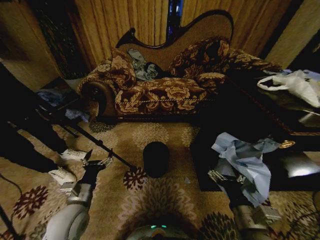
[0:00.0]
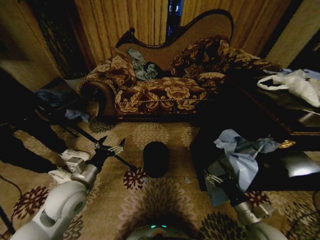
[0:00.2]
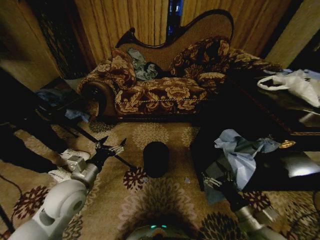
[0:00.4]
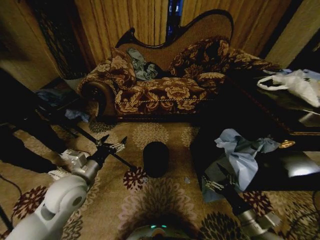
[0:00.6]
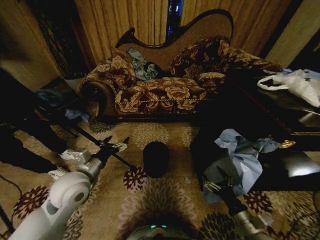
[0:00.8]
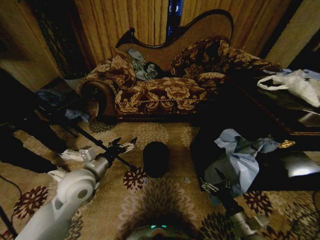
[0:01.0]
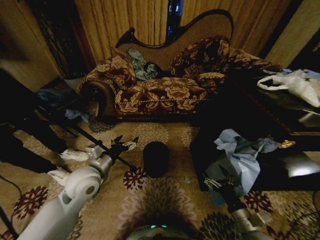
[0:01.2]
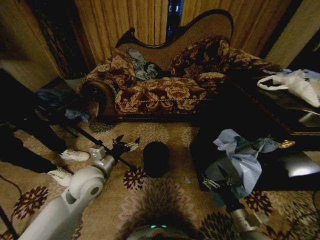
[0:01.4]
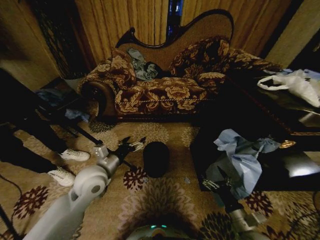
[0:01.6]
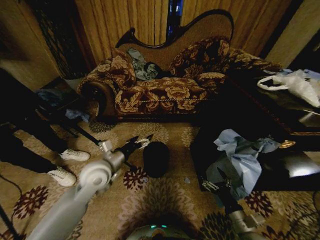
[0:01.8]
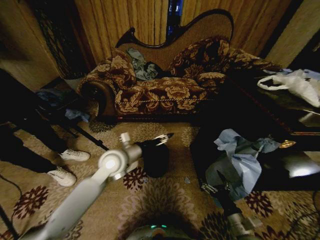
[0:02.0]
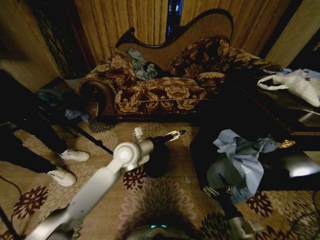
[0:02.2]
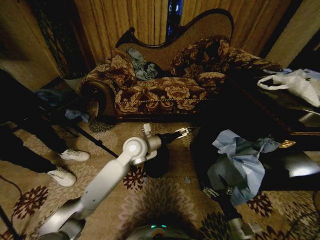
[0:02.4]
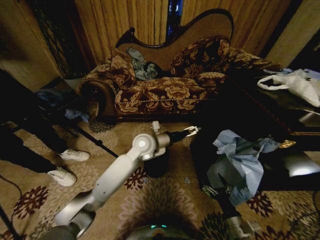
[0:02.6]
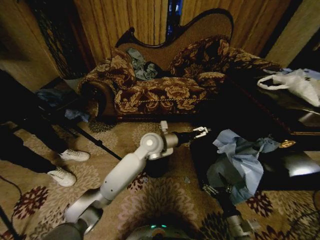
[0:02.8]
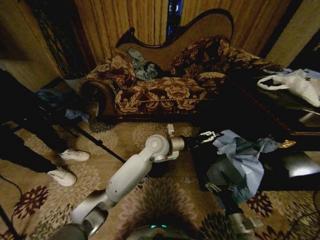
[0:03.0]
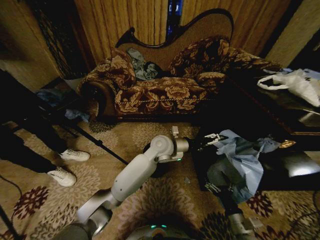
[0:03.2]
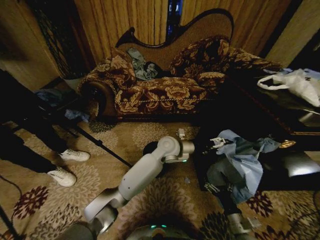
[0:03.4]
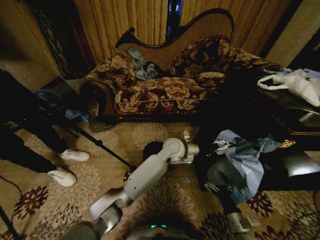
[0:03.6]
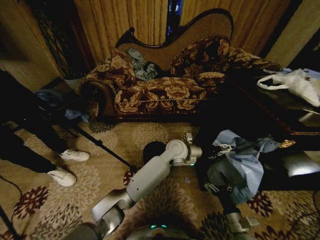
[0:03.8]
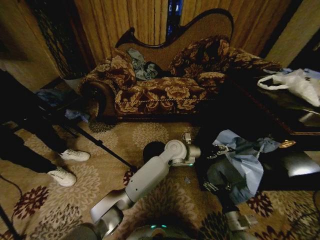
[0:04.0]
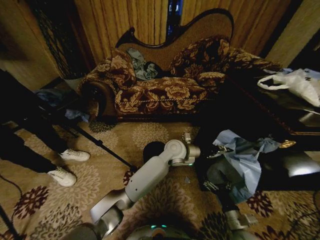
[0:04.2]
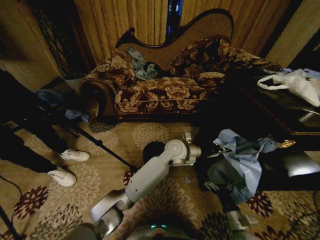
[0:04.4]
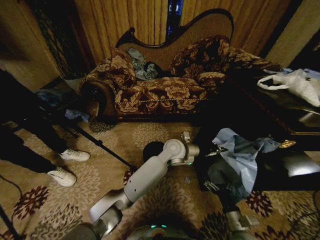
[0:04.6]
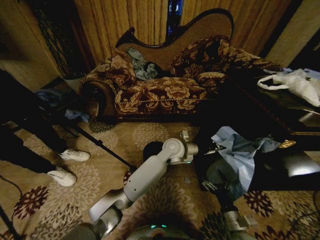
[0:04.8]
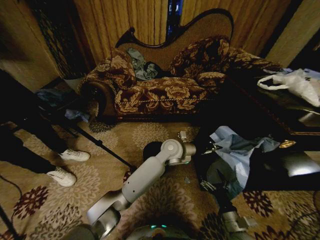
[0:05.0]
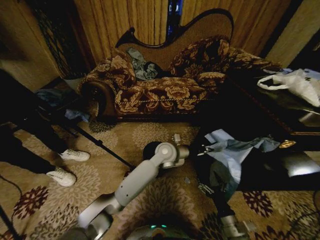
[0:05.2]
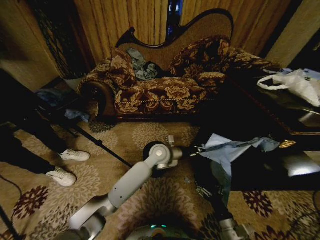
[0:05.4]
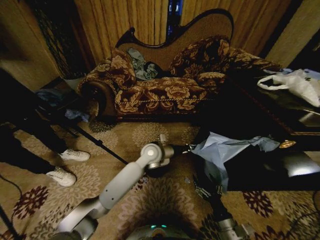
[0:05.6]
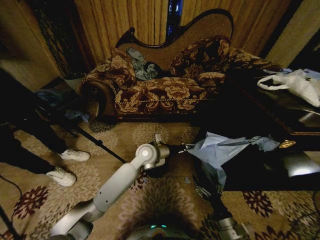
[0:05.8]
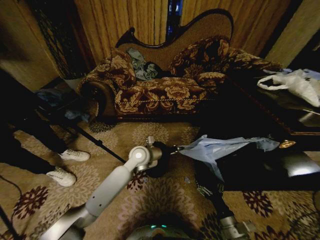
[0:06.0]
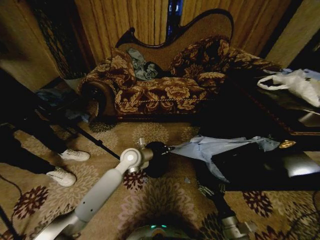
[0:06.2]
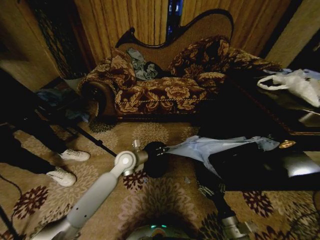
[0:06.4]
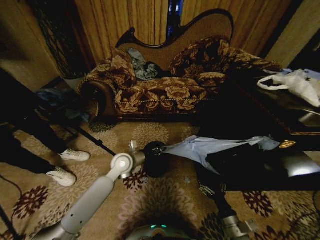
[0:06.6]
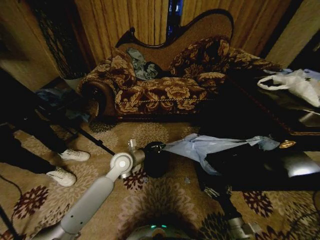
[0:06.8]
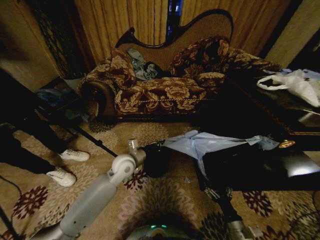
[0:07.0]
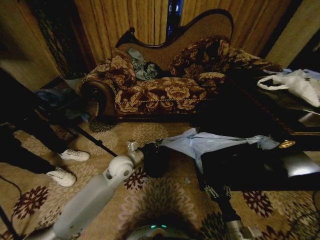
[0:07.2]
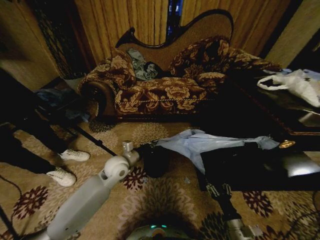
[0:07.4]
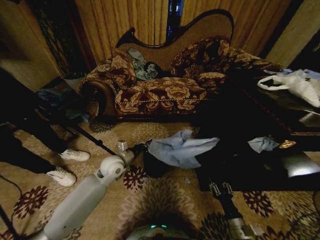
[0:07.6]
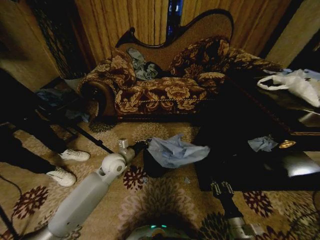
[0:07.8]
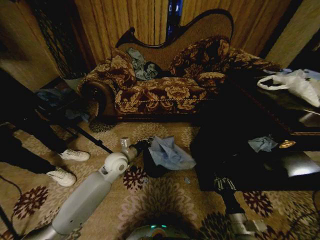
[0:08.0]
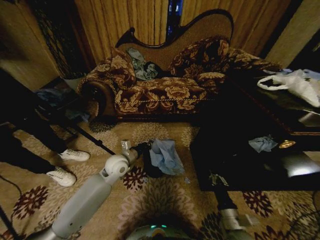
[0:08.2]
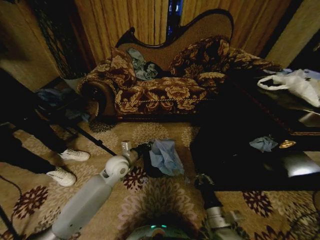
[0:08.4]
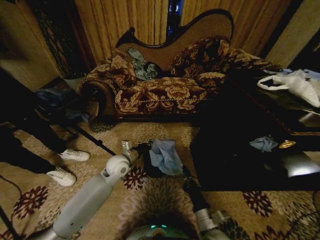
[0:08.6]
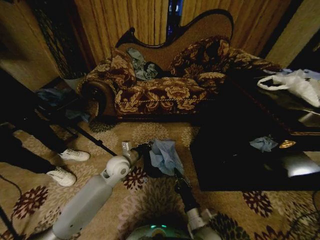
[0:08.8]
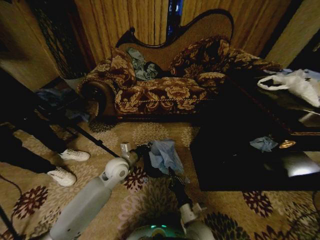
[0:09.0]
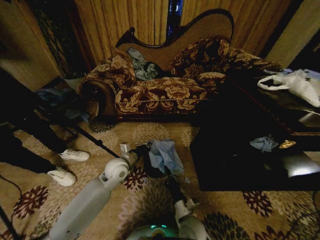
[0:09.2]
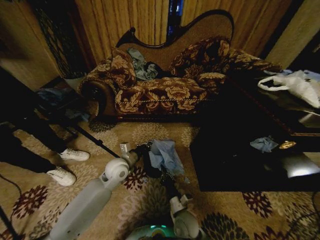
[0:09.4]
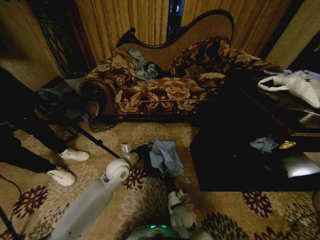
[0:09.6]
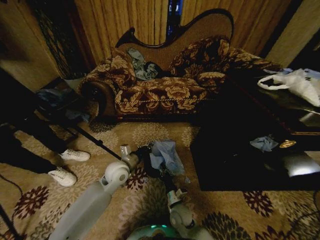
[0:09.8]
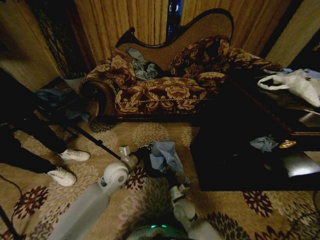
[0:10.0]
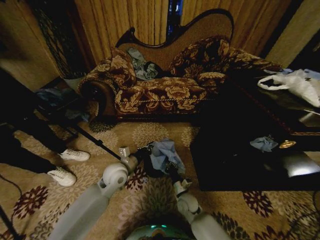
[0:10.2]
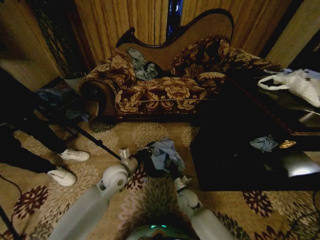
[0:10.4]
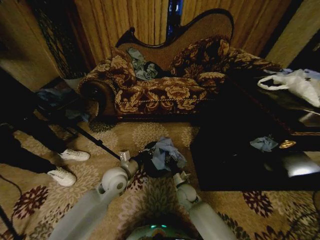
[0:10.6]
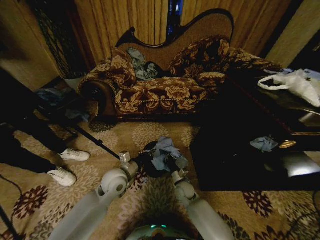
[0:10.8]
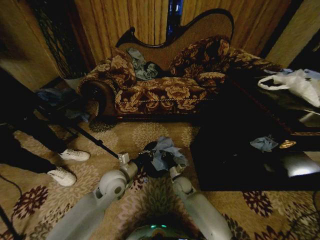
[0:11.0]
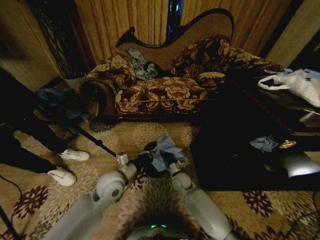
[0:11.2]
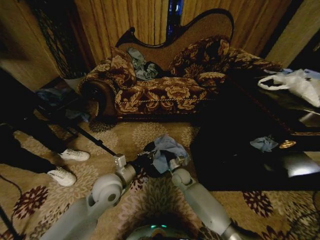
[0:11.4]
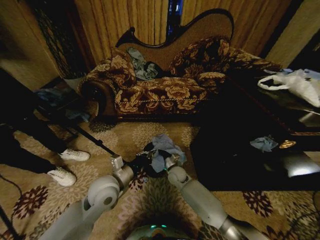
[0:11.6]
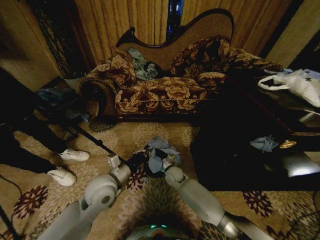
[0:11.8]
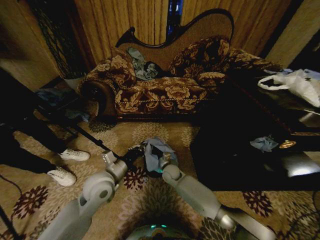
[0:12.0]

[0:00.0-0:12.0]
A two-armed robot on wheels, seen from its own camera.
Task of the whole recording: Place a garbage bag over the trash bin.
0:01.6 to 0:03.0: The left gripper is displaced to the right and forward by some 25 cm.
0:03.0 to 0:04.4: The left gripper travels to the right by about 10 cm, and closes.
0:04.4 to 0:06.0: The left gripper is displaced to the left by some 15 cm.
0:06.0 to 0:07.6: The right gripper closes its fingers; the left gripper heads to the left, covering approximately 10 cm.
0:07.6 to 0:09.0: The right gripper shifts approximately 15 cm to the left, and closes.
0:09.0 to 0:10.4: The right gripper travels forward and downward by roughly 15 cm.
0:10.4 to 0:12.0: The left gripper travels backward by roughly 5 cm. The right gripper moves forward, to the left and upward, about 15 cm.

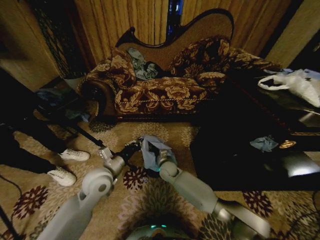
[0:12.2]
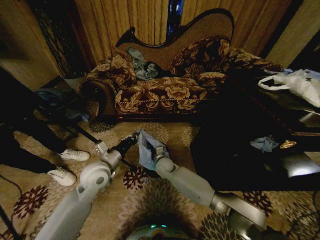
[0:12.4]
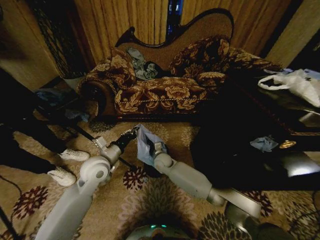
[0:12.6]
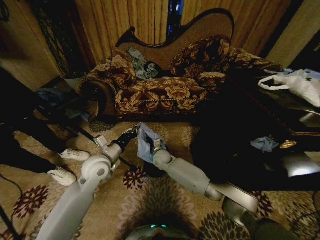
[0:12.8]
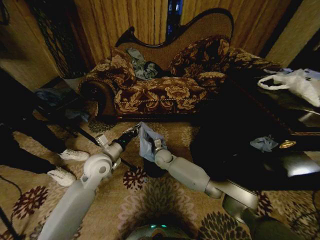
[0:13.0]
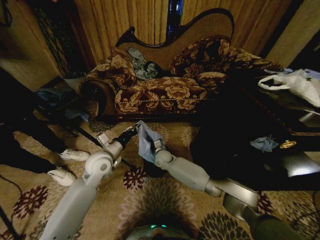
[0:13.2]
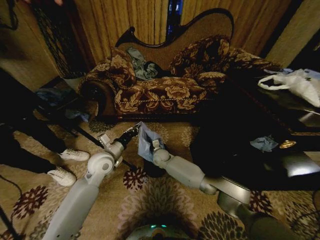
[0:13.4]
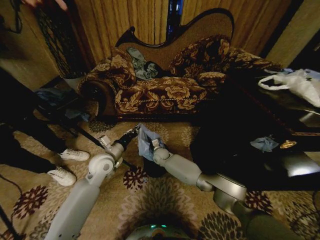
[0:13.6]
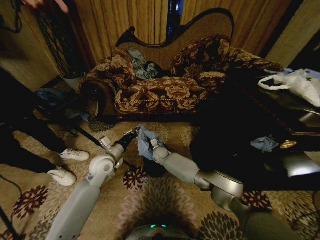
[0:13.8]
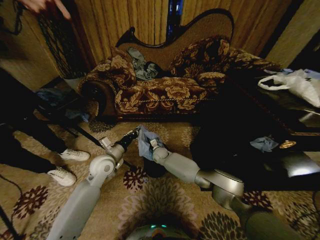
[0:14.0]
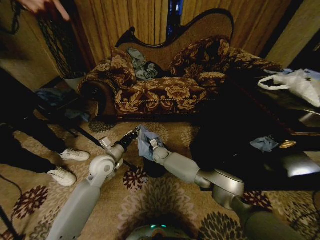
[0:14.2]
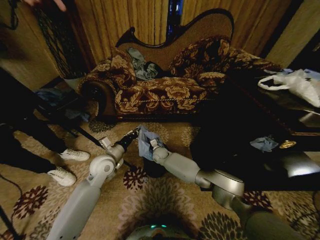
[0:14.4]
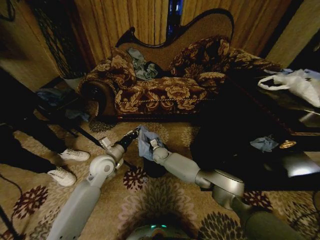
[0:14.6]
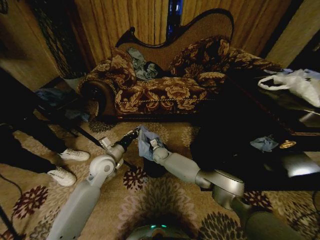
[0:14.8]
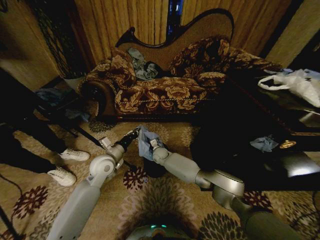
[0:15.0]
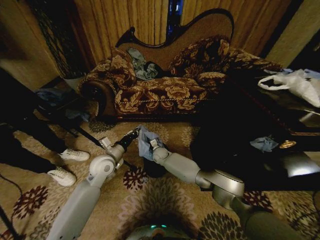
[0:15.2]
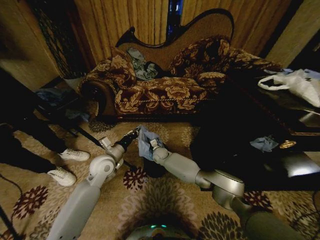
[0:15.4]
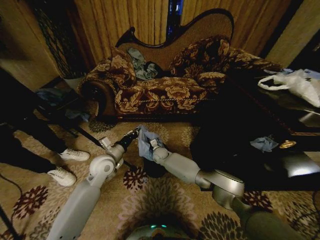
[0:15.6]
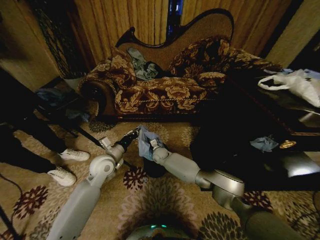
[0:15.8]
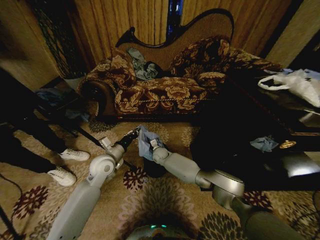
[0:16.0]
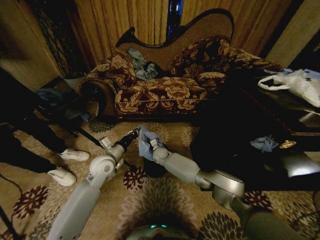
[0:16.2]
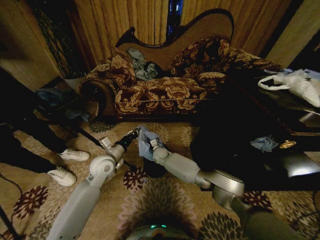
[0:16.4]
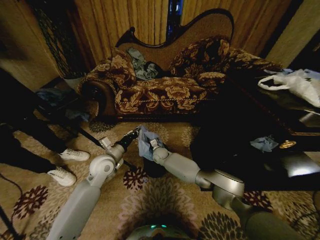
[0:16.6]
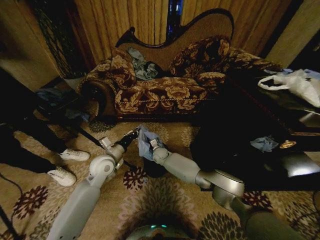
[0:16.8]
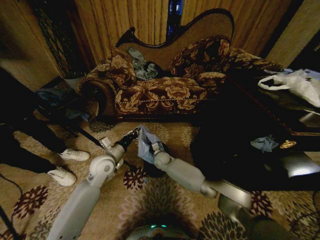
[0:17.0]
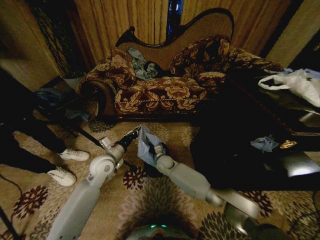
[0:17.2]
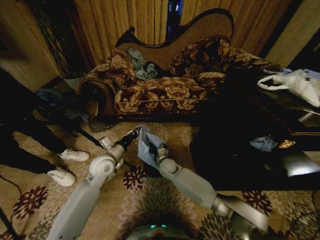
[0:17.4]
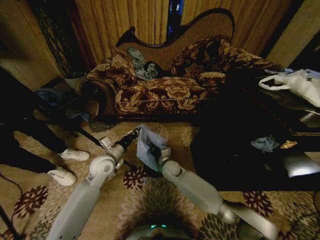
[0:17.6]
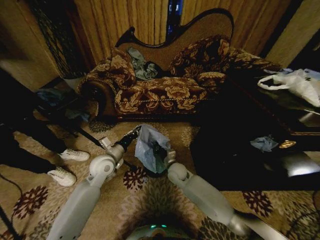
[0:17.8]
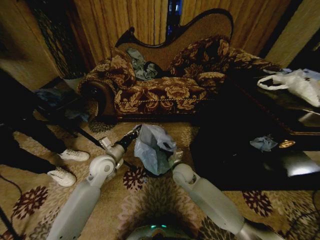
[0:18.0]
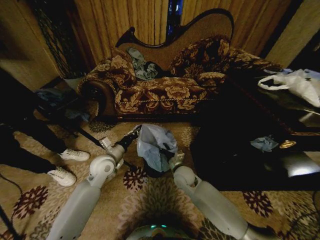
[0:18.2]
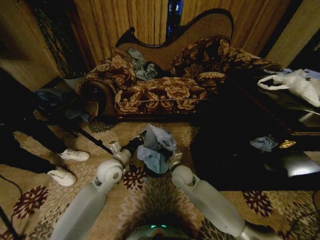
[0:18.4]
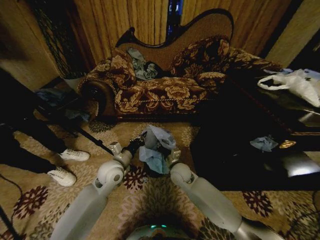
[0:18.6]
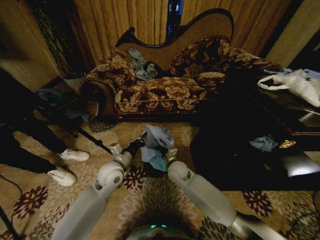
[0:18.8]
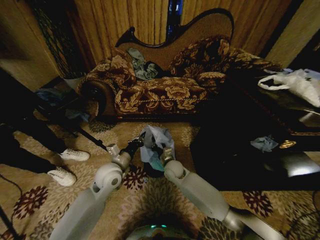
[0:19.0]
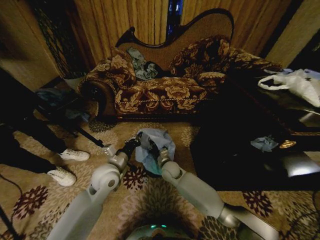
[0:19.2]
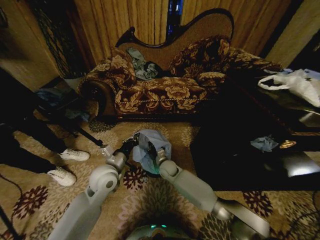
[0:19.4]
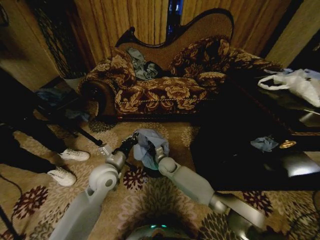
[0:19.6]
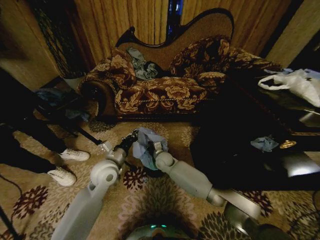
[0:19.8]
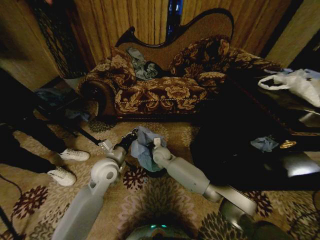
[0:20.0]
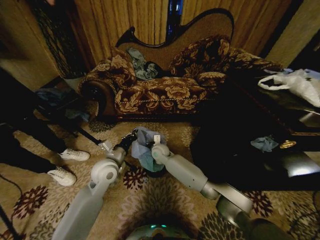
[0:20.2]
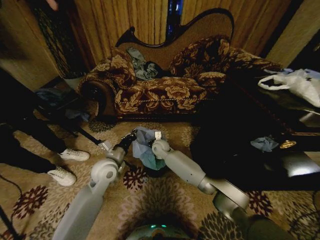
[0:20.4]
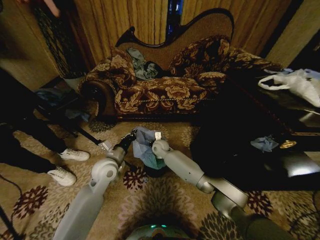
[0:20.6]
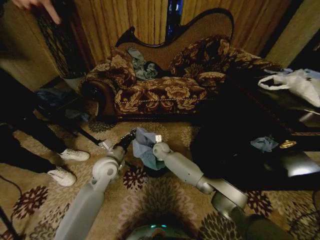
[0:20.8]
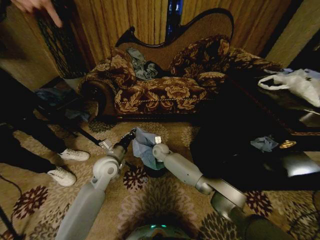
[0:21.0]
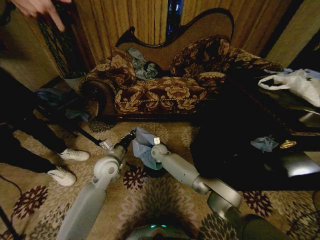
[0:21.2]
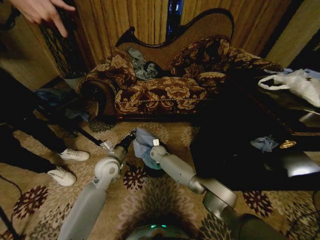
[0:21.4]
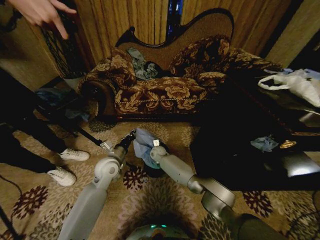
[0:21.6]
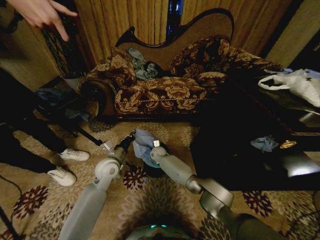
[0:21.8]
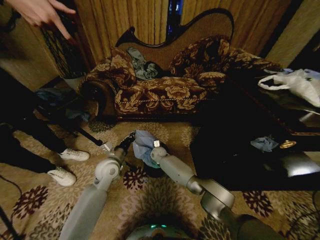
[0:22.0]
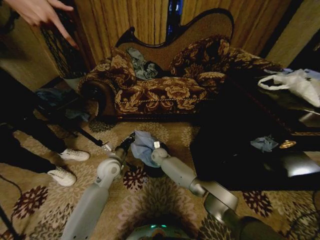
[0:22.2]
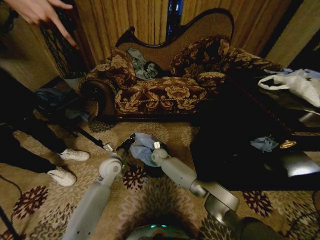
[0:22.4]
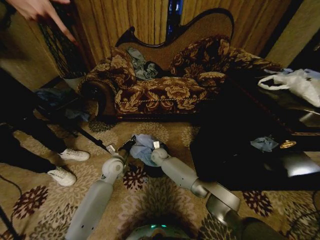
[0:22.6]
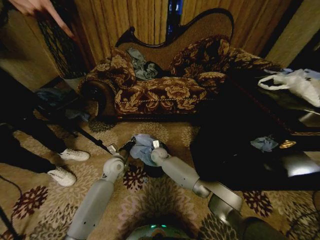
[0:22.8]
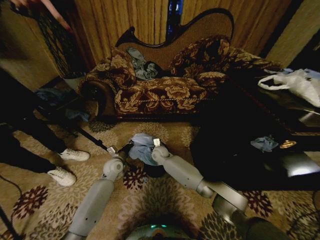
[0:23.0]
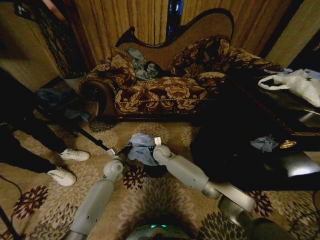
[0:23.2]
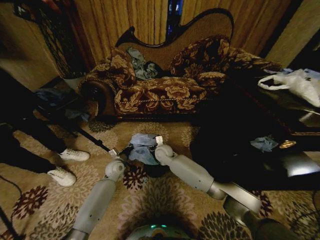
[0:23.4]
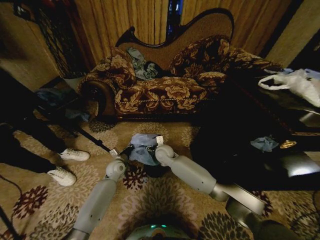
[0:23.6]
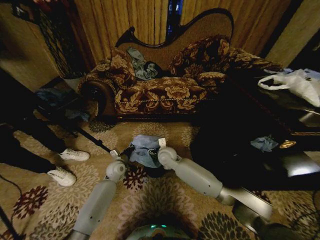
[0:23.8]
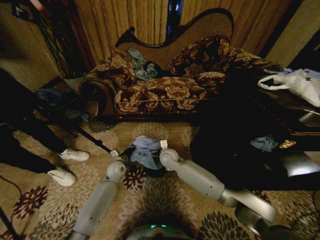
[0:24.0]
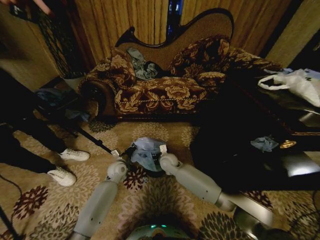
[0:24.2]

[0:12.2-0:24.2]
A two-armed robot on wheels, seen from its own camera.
Task of the whole recording: Place a garbage bag over the trash bin.
0:12.2 to 0:13.8: The grippers both shift forward by approximately 10 cm.
0:13.8 to 0:16.6: Neither gripper changes place.
0:16.6 to 0:18.2: The right gripper goes roughly 20 cm backward and to the right.
0:18.2 to 0:19.8: The right gripper travels forward and to the left by roughly 15 cm; the left gripper moves about 5 cm.
0:19.8 to 0:21.2: The right gripper travels forward by some 5 cm.
0:21.2 to 0:22.6: The right gripper opens its fingers; the left gripper shifts some 5 cm downward.
0:22.6 to 0:24.2: The right gripper moves backward and to the right, roughly 10 cm, and opens, while the left gripper moves downward, some 5 cm.
